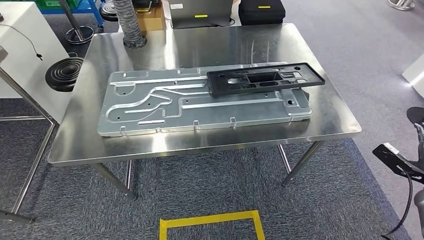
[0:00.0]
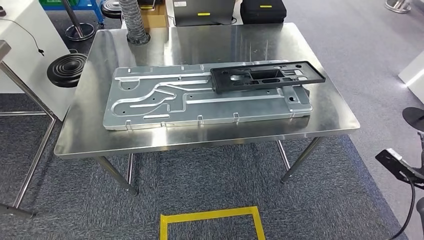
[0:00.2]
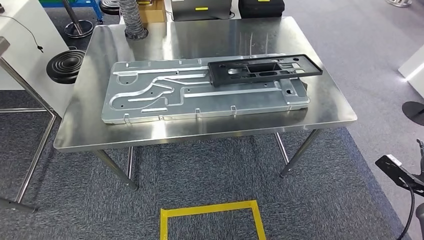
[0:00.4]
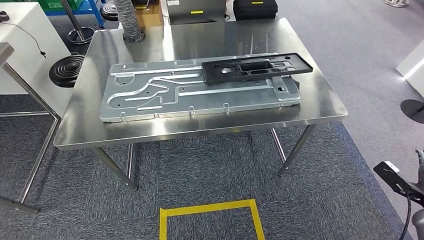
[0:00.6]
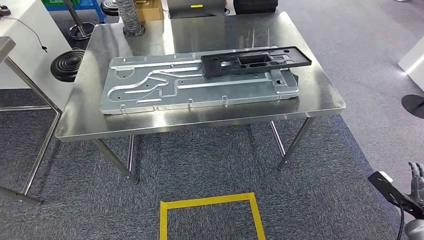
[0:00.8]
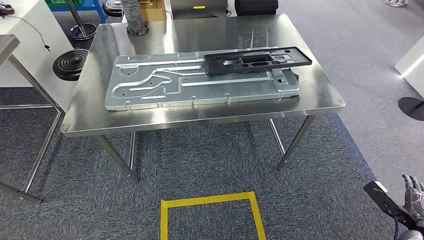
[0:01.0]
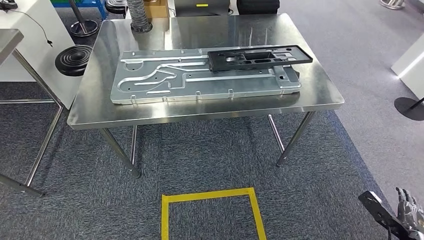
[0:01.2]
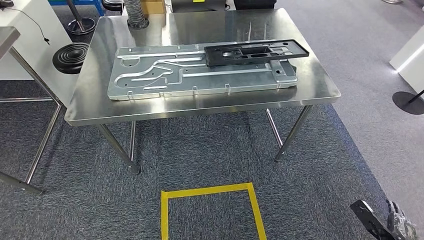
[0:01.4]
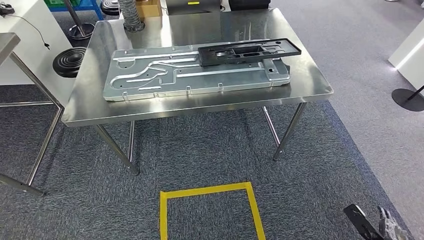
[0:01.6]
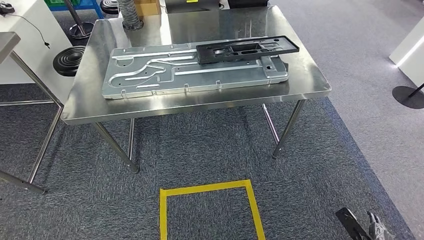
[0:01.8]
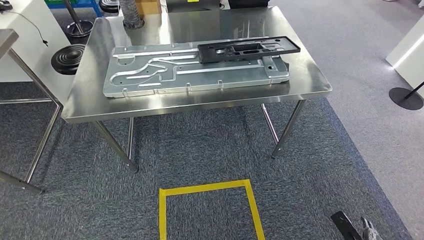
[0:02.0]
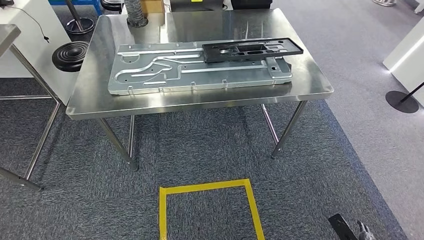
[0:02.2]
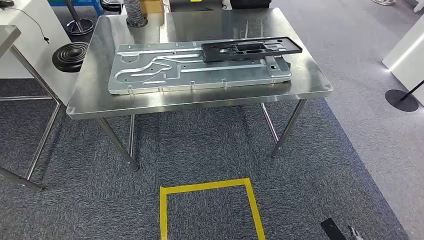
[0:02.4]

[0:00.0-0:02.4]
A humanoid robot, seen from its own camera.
Step, 0:00.0 to 0:02.2: Move to the initial position of the shelf.
